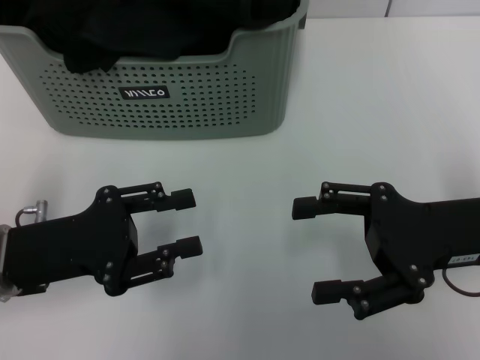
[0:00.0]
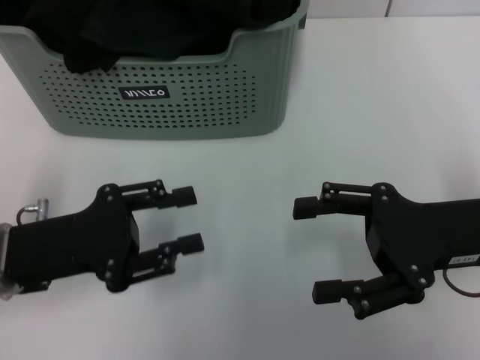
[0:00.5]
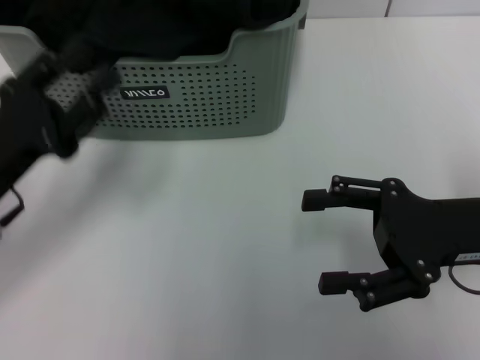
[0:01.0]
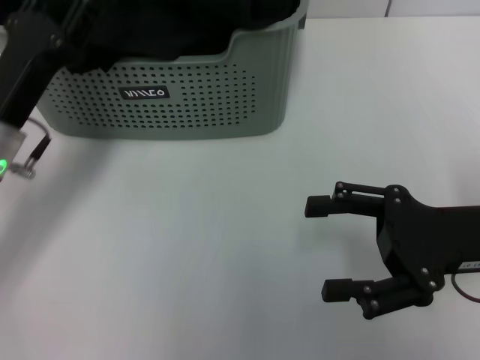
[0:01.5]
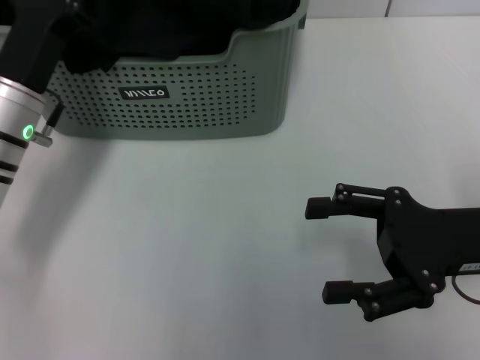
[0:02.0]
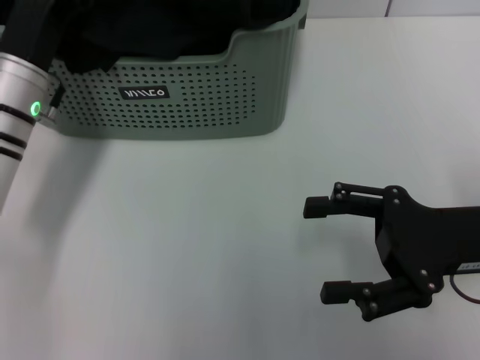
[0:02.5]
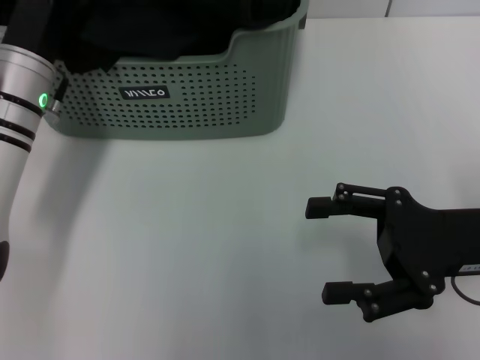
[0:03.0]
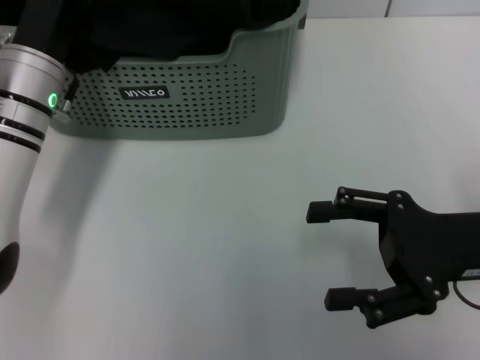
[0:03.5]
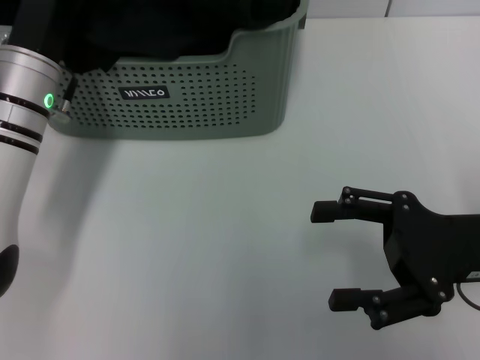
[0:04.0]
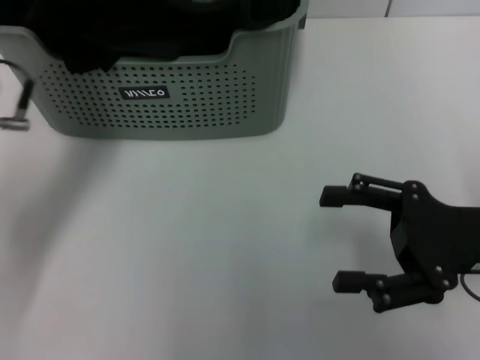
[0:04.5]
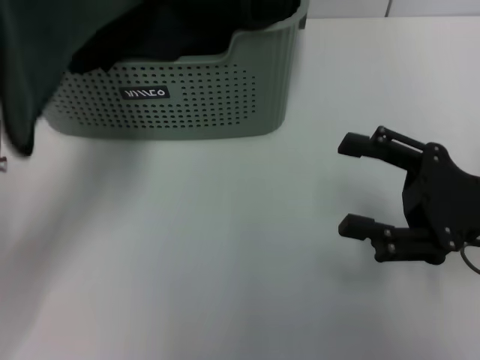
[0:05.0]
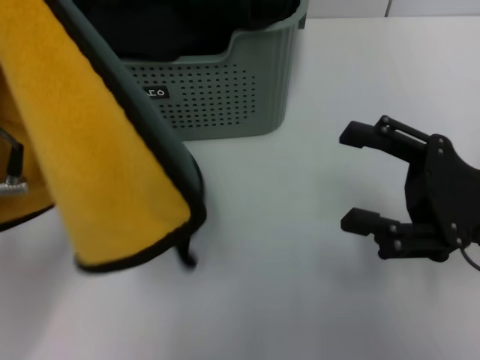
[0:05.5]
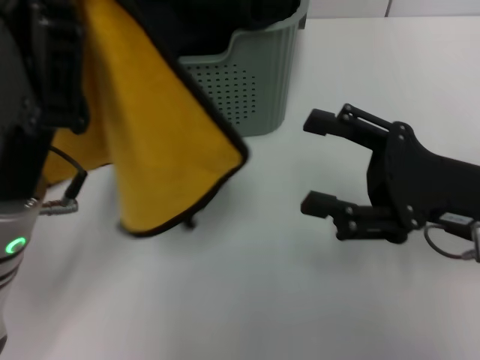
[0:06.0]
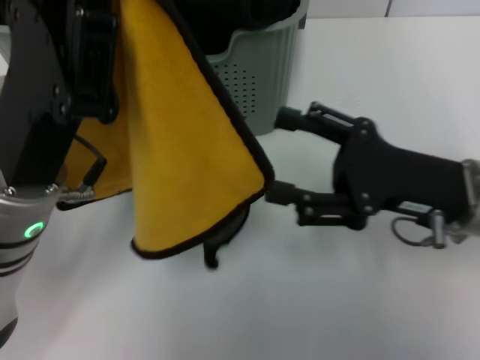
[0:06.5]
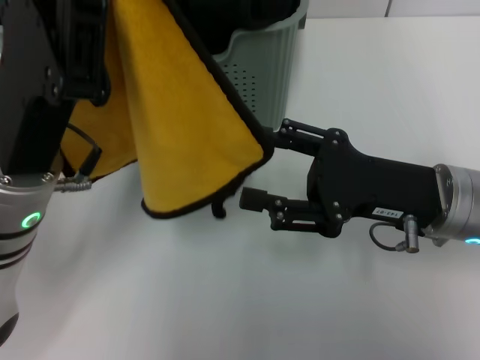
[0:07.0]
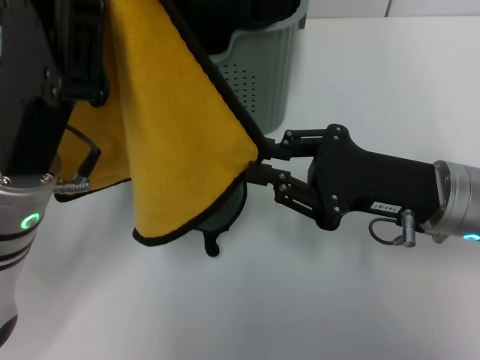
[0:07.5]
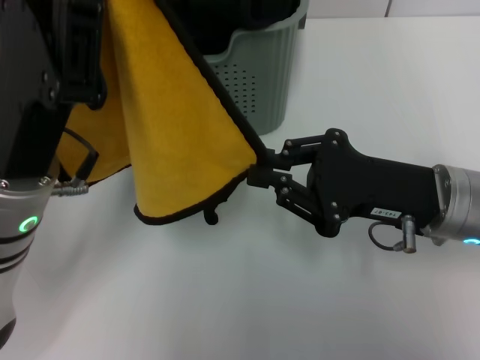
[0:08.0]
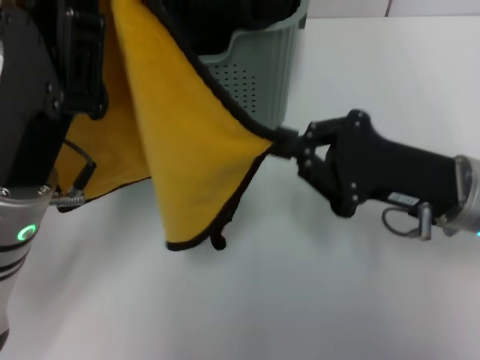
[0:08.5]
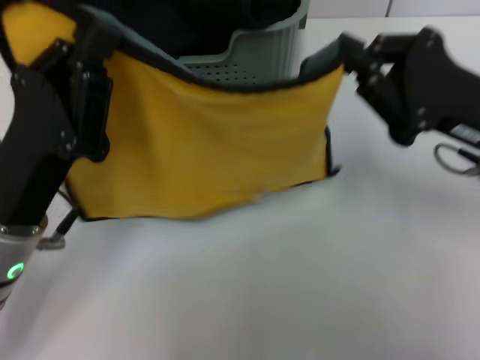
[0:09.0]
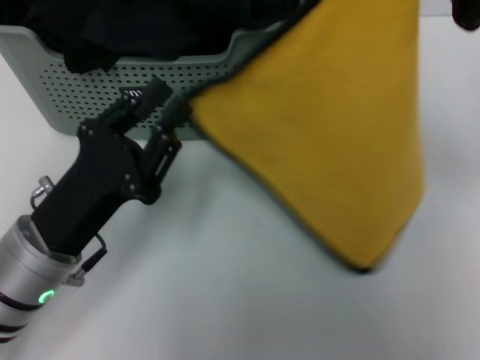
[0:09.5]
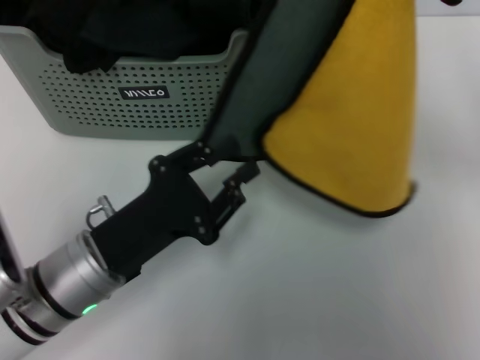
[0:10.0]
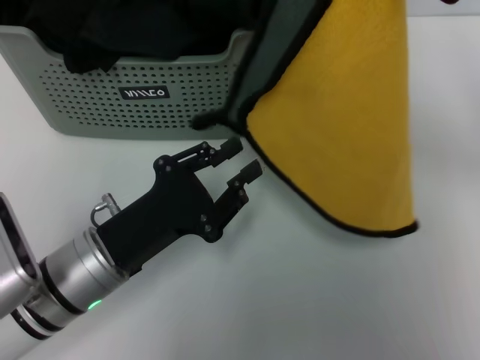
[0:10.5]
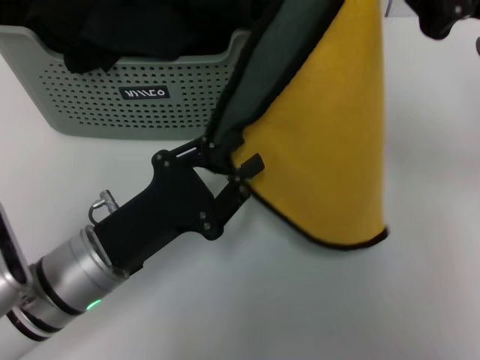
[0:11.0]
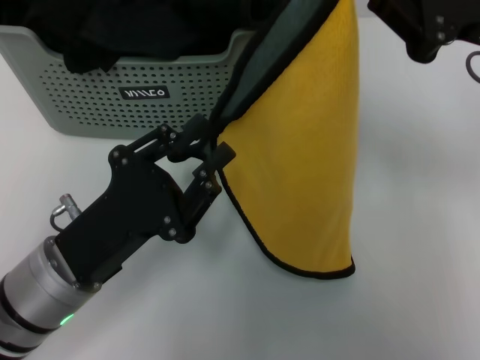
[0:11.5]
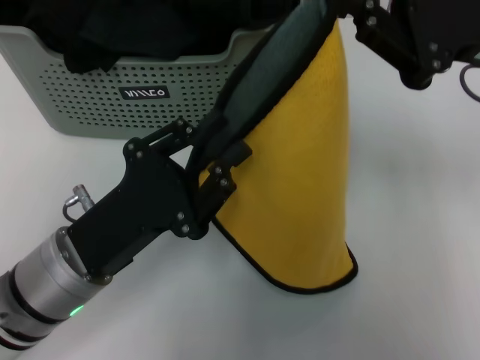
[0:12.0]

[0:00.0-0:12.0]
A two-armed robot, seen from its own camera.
Task of the whole recording: pick up the towel from the storage box and lay it flat on the table.
Step, 0:00.0 to 0:04.5: Pick up a towel with the left gripper.
Step, 0:05.0 to 0:08.0: Spread the towel flat with the left gripper.
0:00.0 to 0:02.0: The left gripper shifts approximately 10 cm forward.
0:02.0 to 0:04.0: The left gripper closes its fingers.
0:04.0 to 0:06.0: The left gripper goes approximately 15 cm backward.
0:06.0 to 0:08.0: The right gripper closes.
0:08.0 to 0:10.0: The right gripper is displaced upward and to the right by roughly 15 cm. The left gripper is displaced downward by approximately 10 cm, and opens.

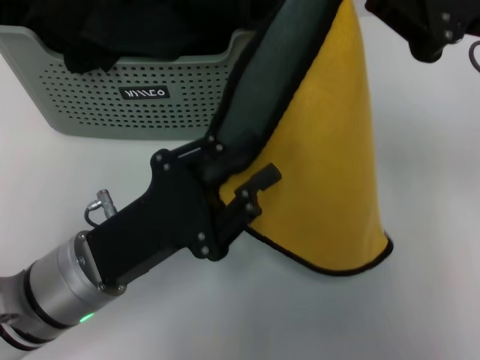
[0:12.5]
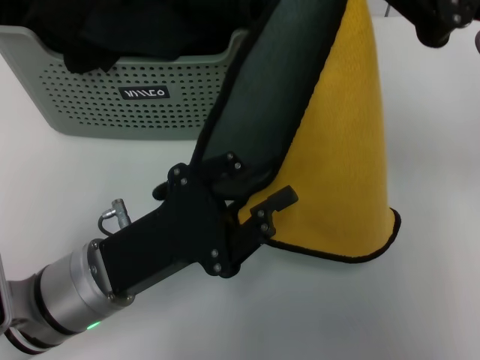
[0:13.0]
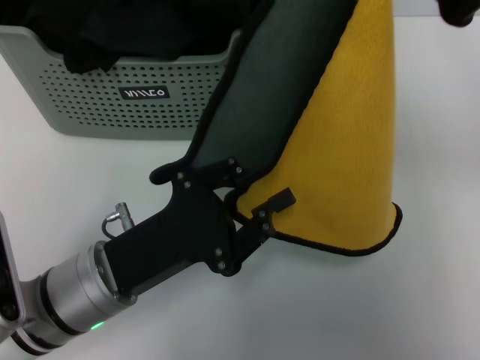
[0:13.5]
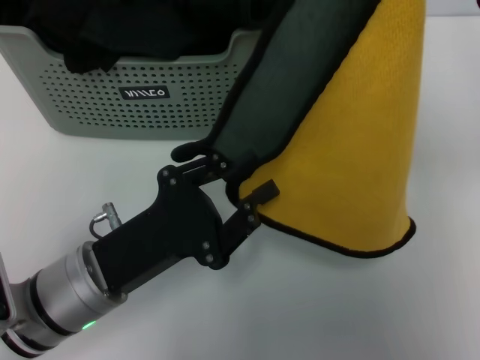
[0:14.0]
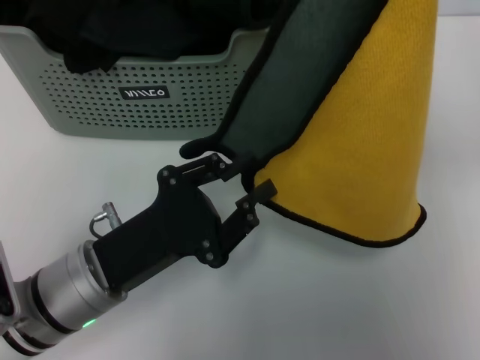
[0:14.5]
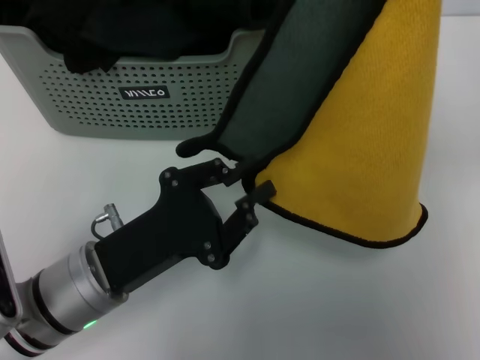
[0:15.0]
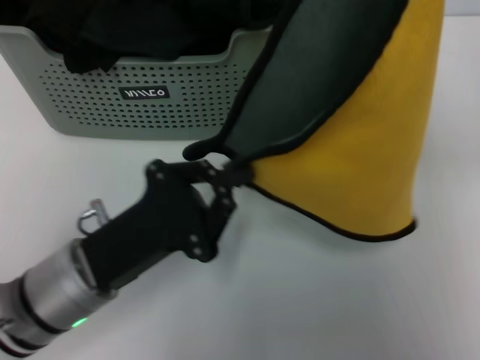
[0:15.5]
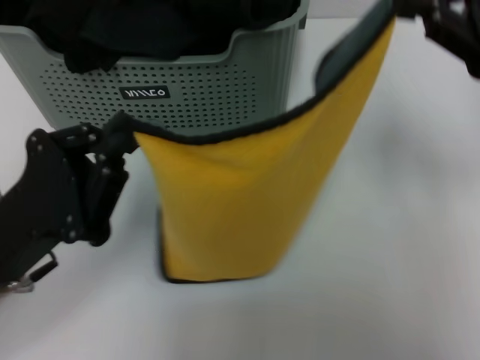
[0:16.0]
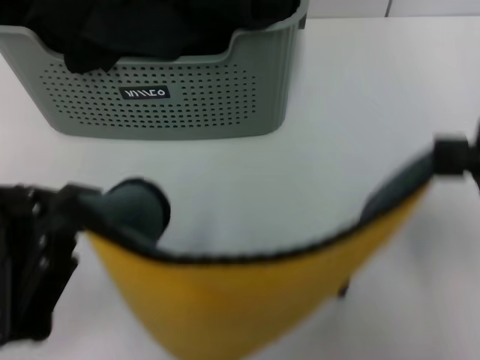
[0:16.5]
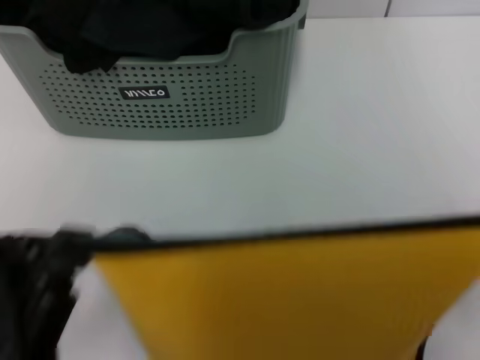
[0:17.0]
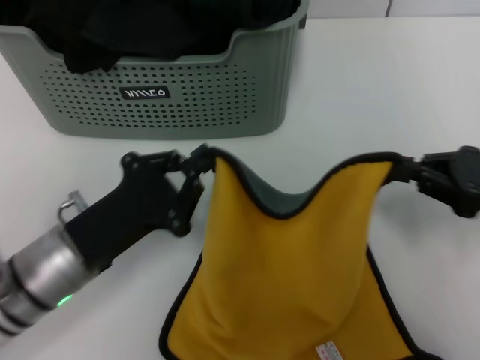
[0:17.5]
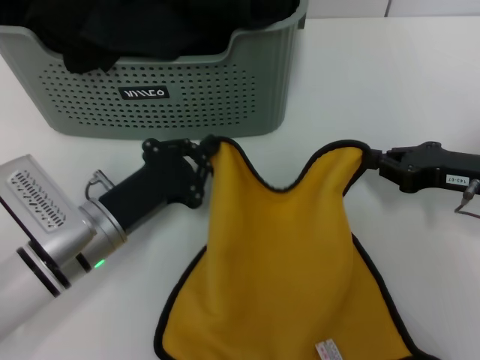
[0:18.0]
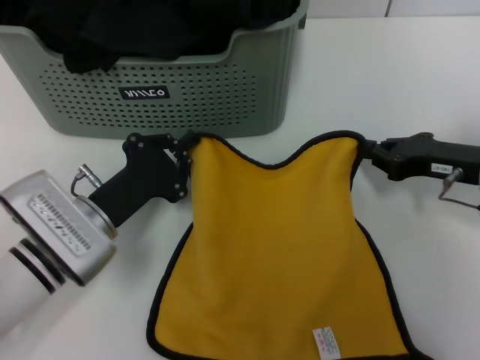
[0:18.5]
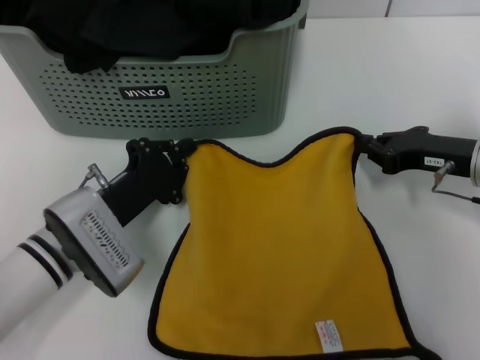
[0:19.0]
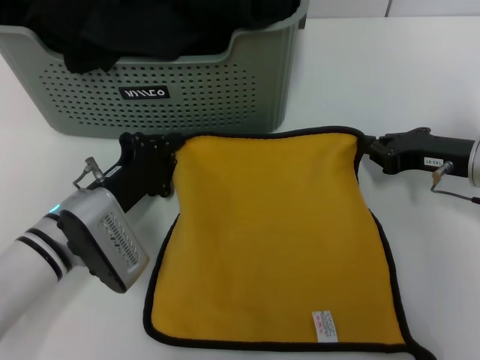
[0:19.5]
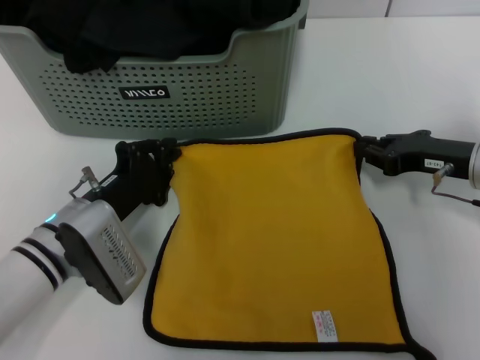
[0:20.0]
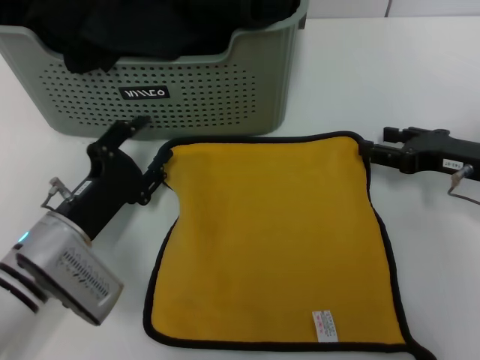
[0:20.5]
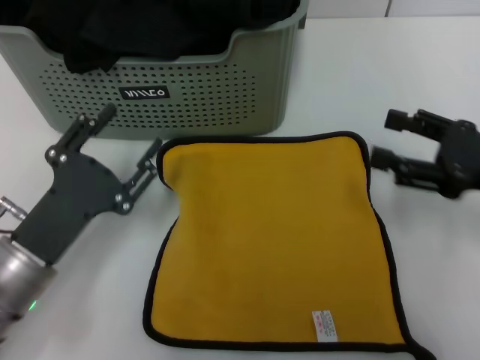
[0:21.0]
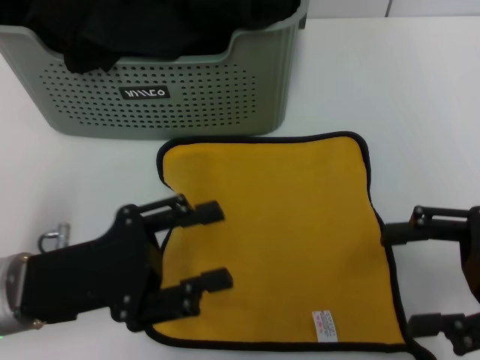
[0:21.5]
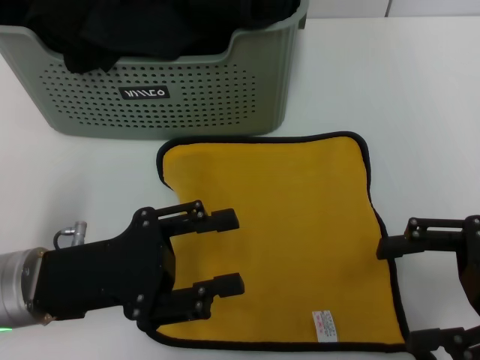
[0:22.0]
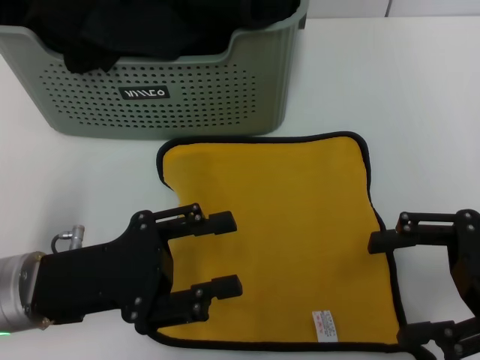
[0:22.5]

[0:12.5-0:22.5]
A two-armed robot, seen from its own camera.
Task of the whole recording: pick up the towel from the storage box and lay it flat on the table.
Step, 0:12.5 to 0:20.0: Spread the towel flat with the right gripper.
0:14.5 to 0:16.5: The right gripper goes roughly 10 cm backward. Meanwhile the left gripper travels to the left and upward by about 10 cm, and closes its fingers.
0:16.5 to 0:18.5: The left gripper goes about 15 cm forward and downward; the right gripper is displaced downward and forward by some 20 cm.
0:18.5 to 0:20.5: The left gripper opens its fingers.
0:20.5 to 0:22.5: The right gripper goes some 10 cm backward and upward, and opens. Meanwhile the left gripper travels upward by roughly 5 cm, and opens up.

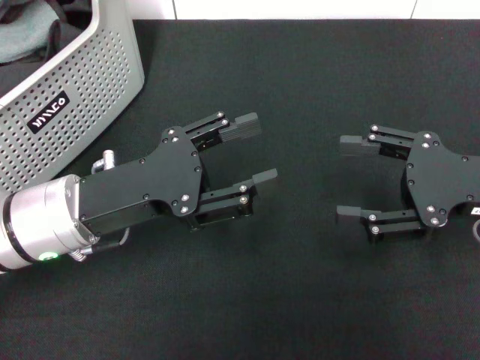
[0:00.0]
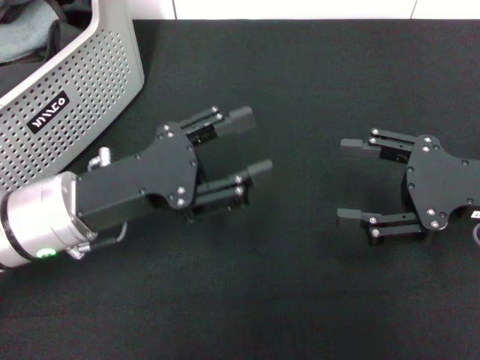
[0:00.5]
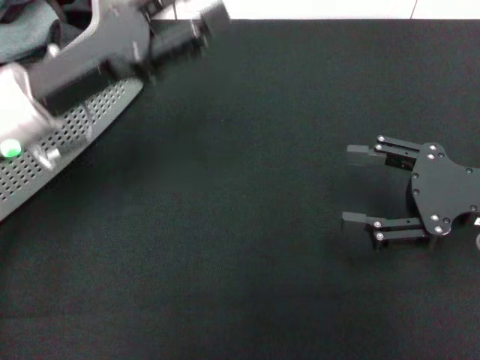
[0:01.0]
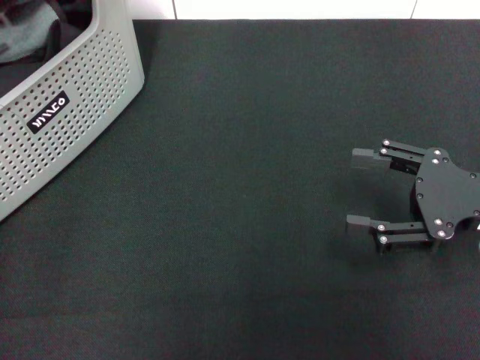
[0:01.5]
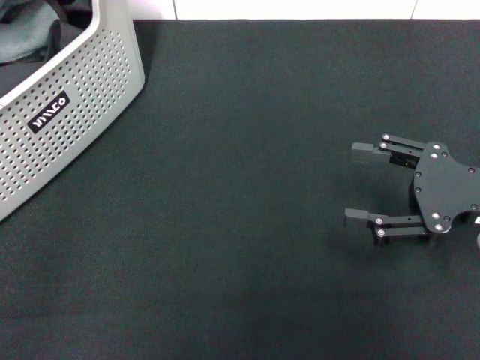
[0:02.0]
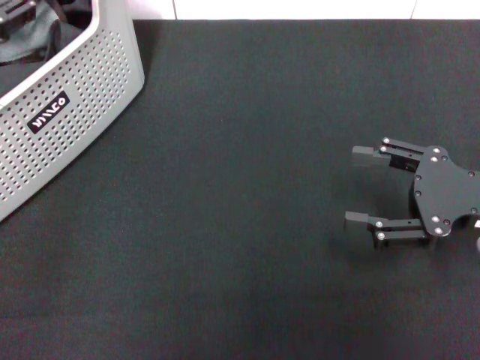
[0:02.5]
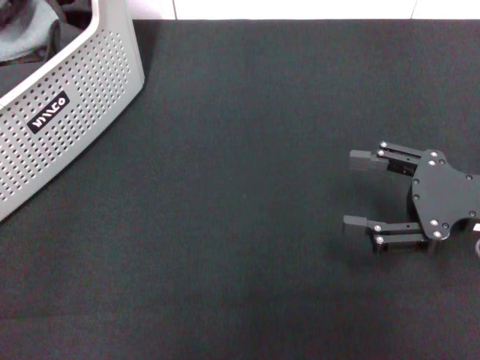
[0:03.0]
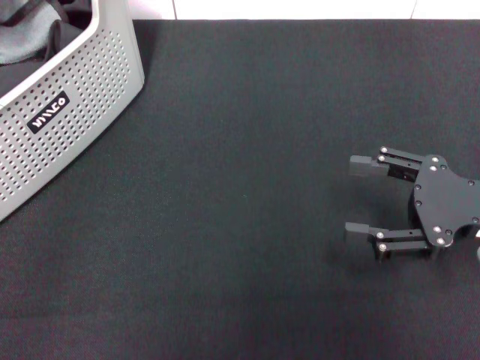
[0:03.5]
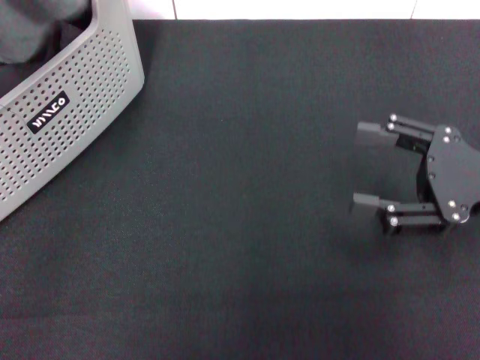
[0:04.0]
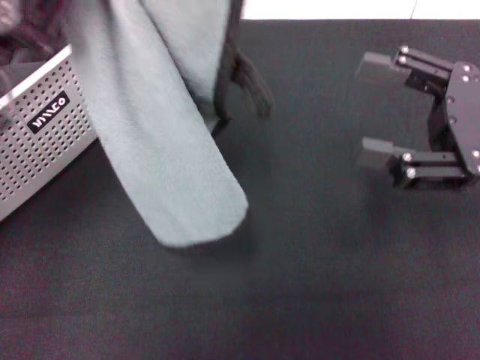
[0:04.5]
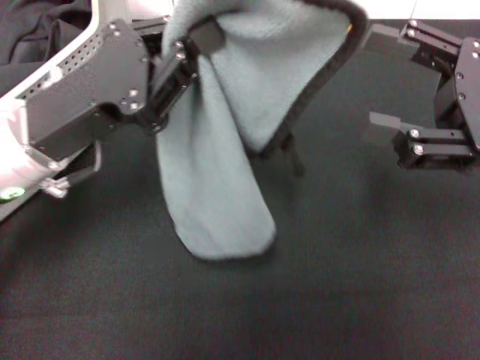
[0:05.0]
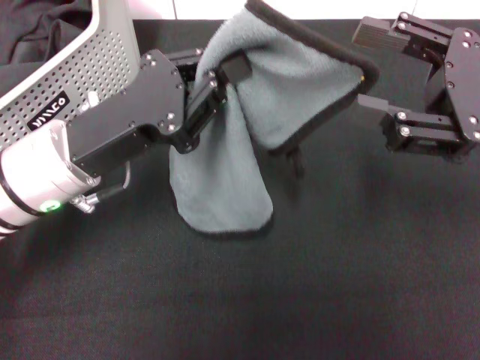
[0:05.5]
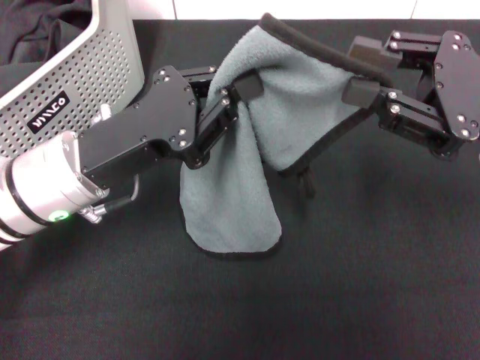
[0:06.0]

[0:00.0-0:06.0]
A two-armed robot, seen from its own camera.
Task of the whole recording: pick up the towel from the storage box and lay it flat on the black tablecloth.
Step, 0:00.0 to 0:02.5: Pick up a towel with the left gripper.
0:00.0 to 0:02.0: The left gripper heads to the left, upward and forward, covering about 20 cm.
0:02.0 to 0:04.0: The left gripper closes.
0:04.0 to 0:06.0: The right gripper ends up about 5 cm from where it was; the left gripper goes about 15 cm to the right and downward.
